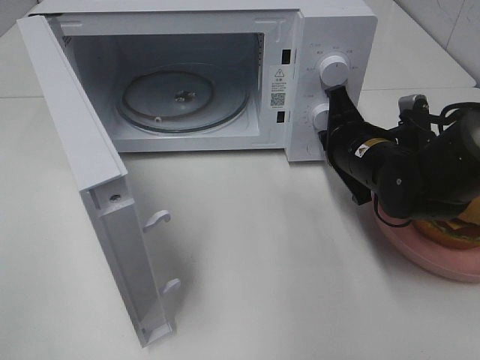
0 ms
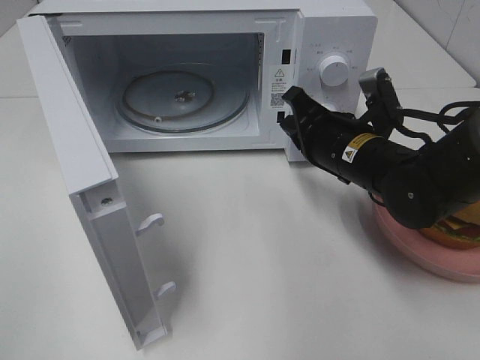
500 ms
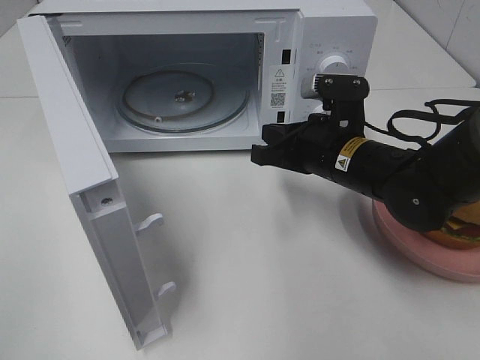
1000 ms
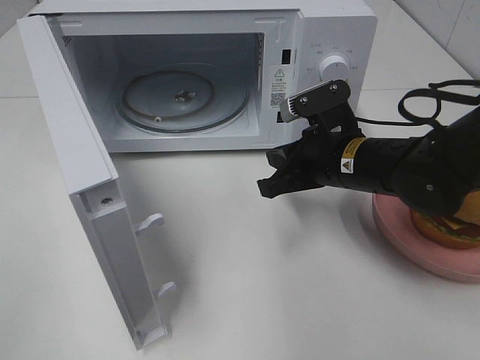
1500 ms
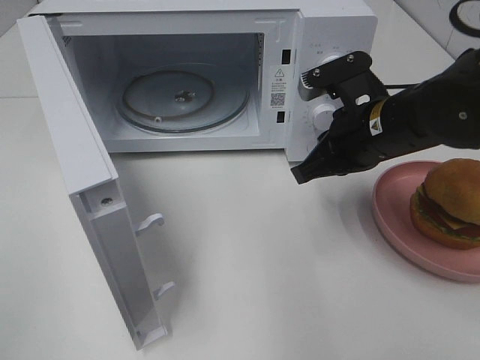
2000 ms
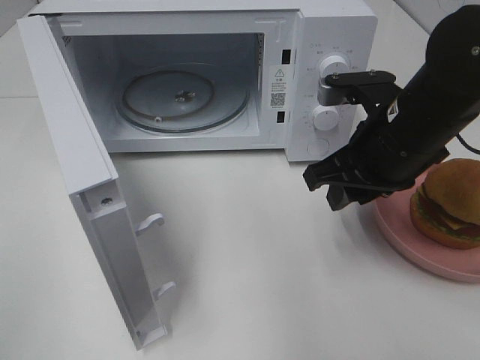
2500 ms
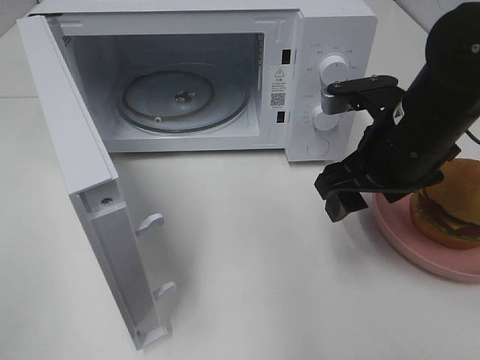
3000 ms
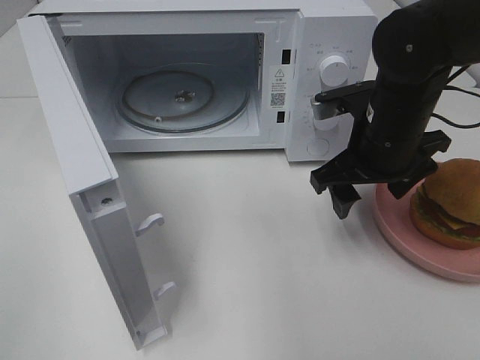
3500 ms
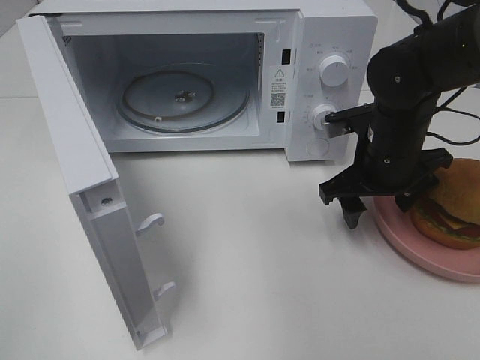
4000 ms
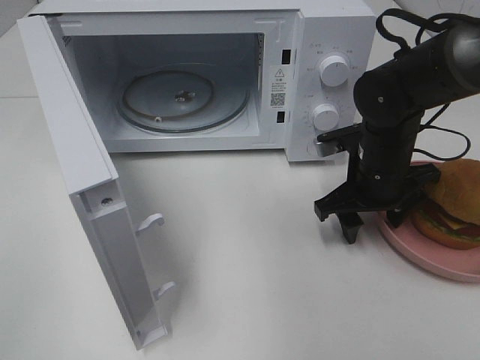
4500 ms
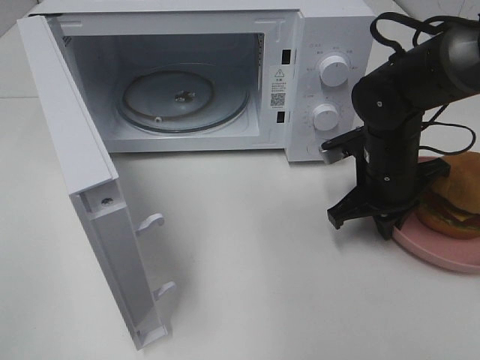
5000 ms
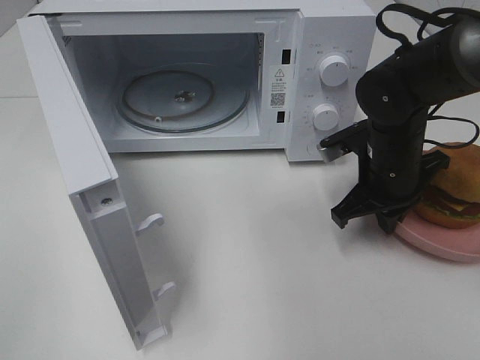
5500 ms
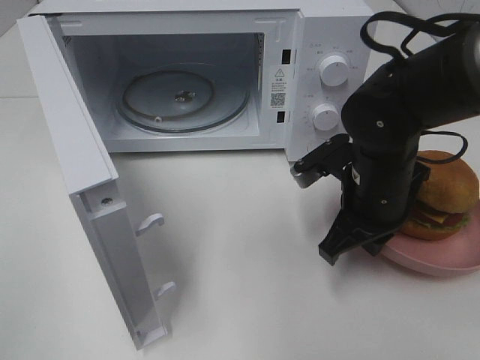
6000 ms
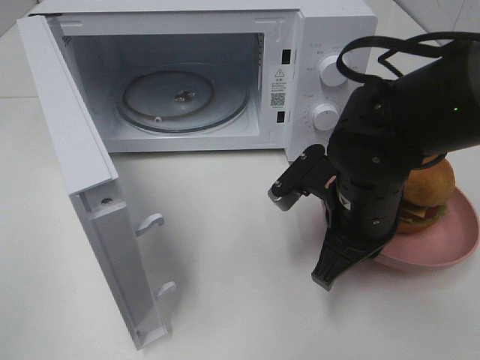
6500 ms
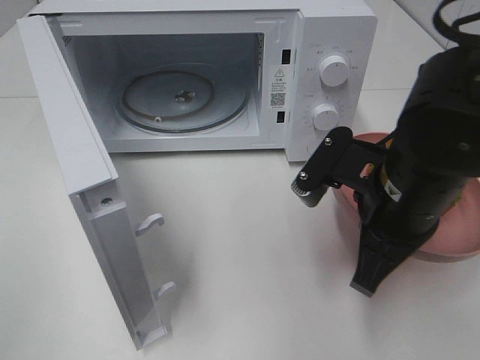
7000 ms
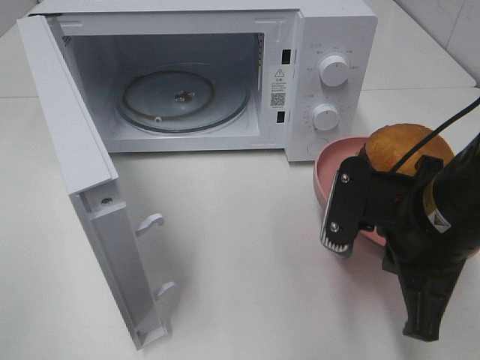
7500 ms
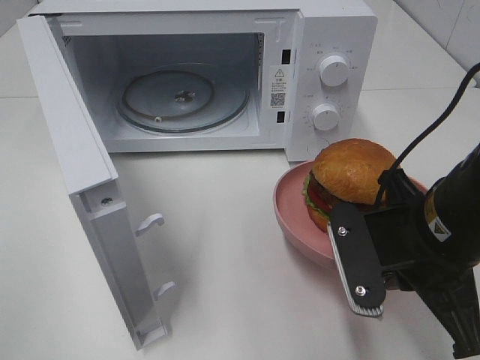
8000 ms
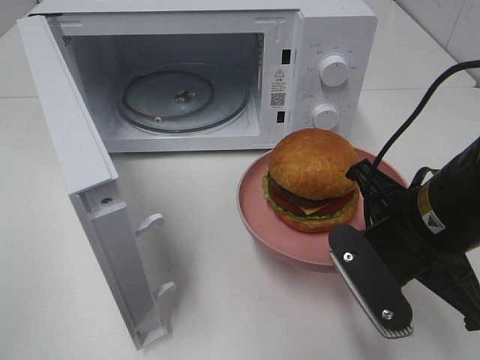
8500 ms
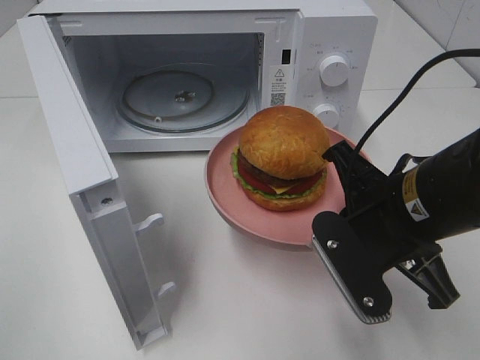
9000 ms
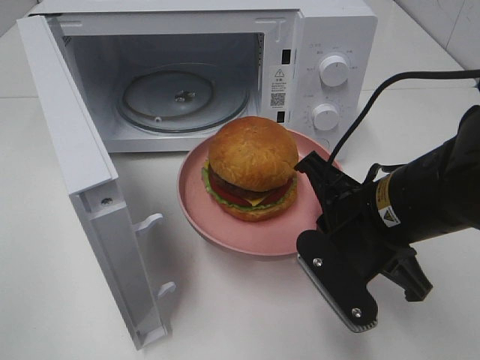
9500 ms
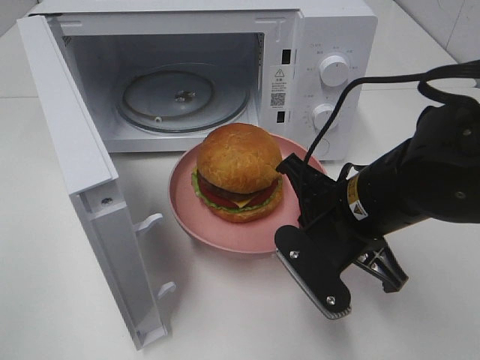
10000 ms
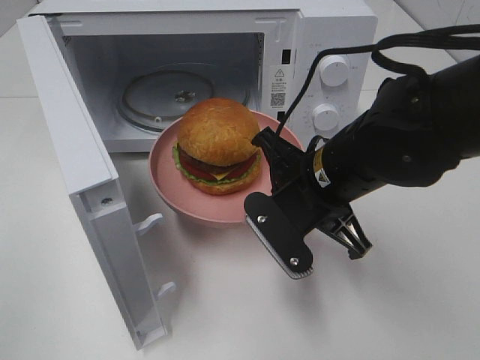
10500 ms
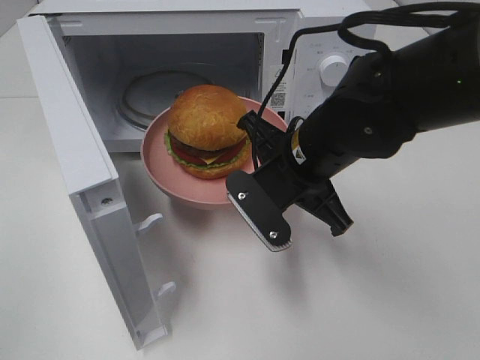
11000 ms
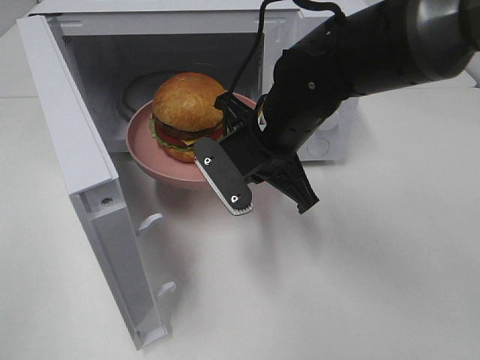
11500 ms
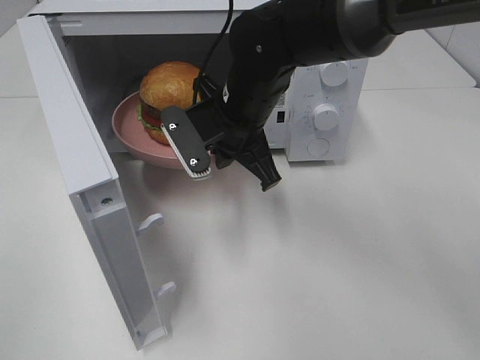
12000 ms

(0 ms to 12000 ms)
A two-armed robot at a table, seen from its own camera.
Task of the whole recording: Heat the burger.
Step, 0 ms - 5000 ms: Right hand: grab the plate with the hamburger.
0 ms - 2000 ms: The right gripper travels upward by about 5 cm.
2000 ms - 4000 ms: The right gripper moves some 5 cm, and opens up.
4000 ms - 6000 ms: The right gripper moves backward, approximately 5 cm, and closes.
6000 ms - 8000 ms: The right gripper heads backward, covering some 10 cm.
8000 ms - 10000 ms: The right gripper ends up approximately 5 cm from where it was.
10000 ms - 12000 ms: The right gripper heads forward and to the left, covering roughly 15 cm.

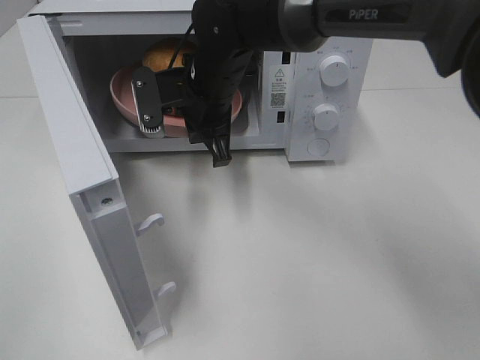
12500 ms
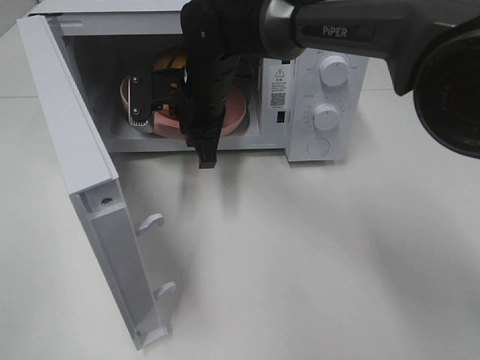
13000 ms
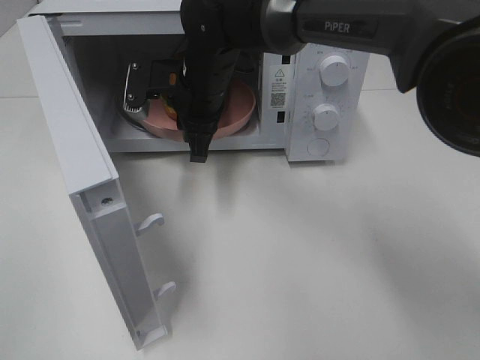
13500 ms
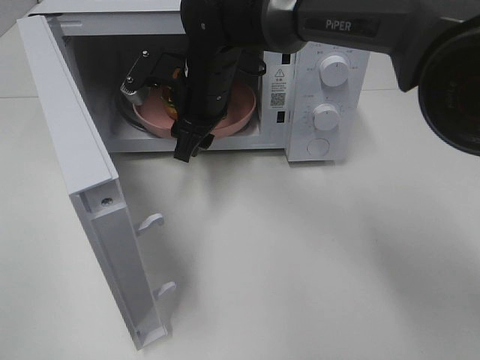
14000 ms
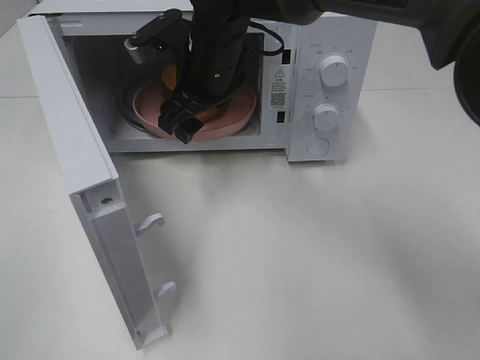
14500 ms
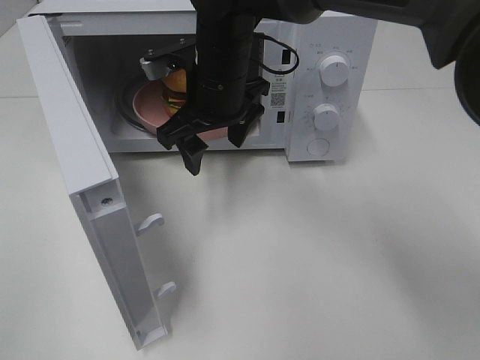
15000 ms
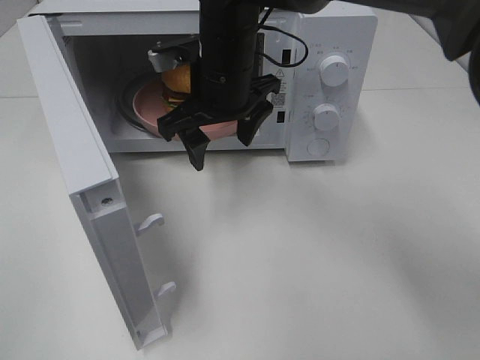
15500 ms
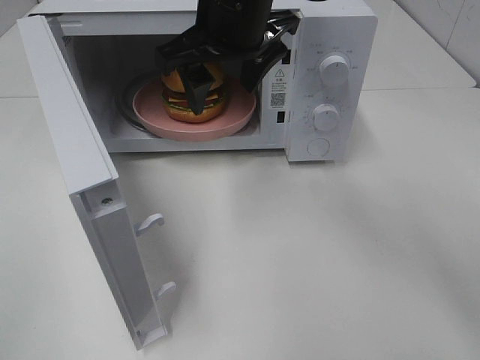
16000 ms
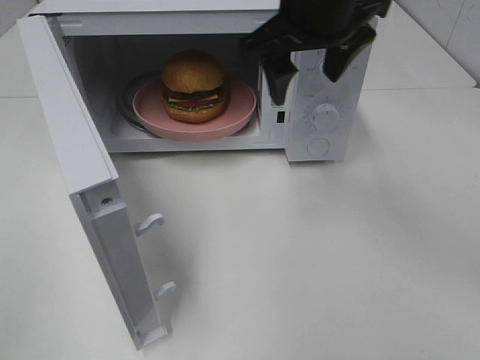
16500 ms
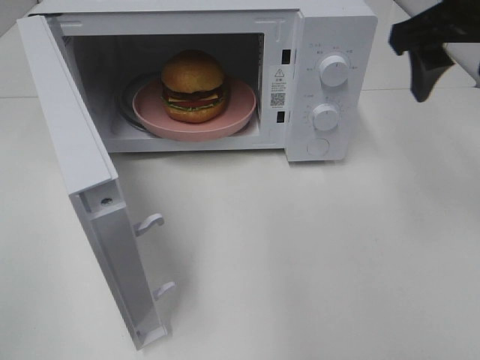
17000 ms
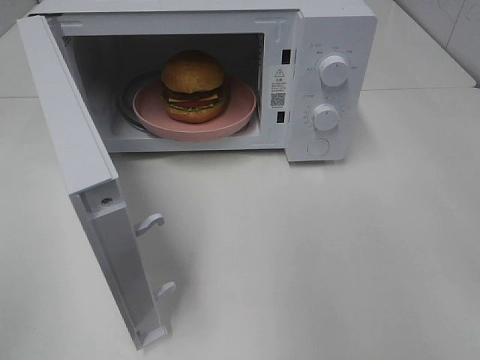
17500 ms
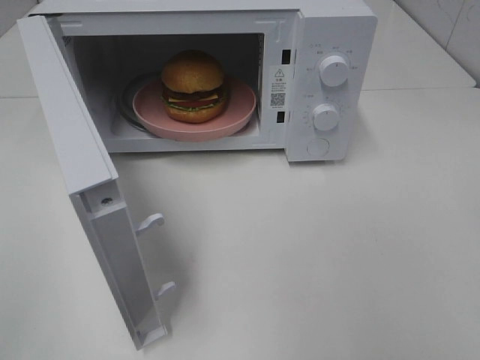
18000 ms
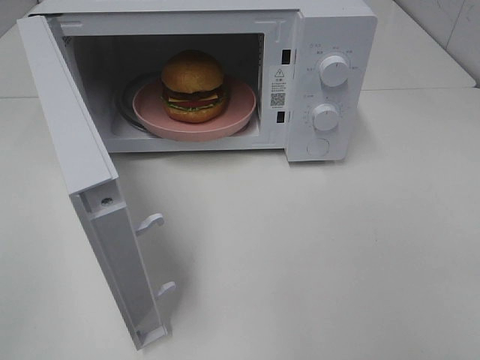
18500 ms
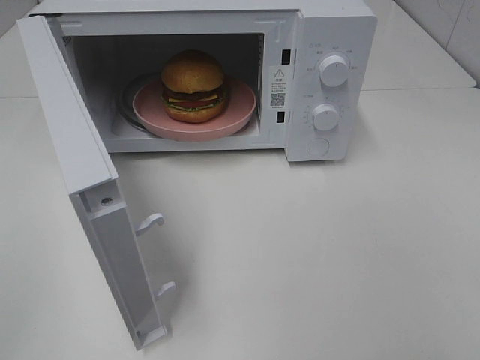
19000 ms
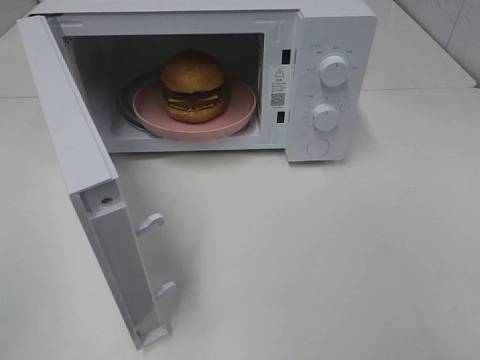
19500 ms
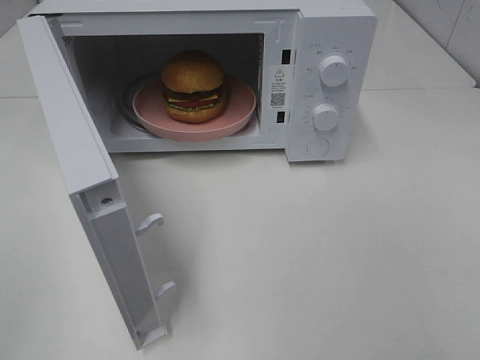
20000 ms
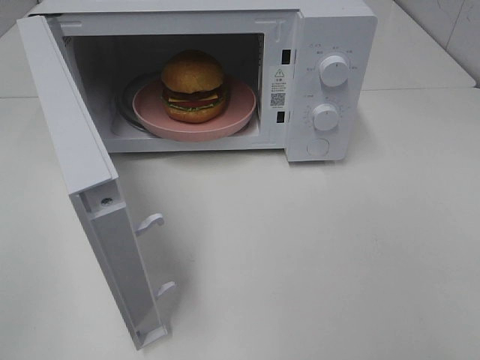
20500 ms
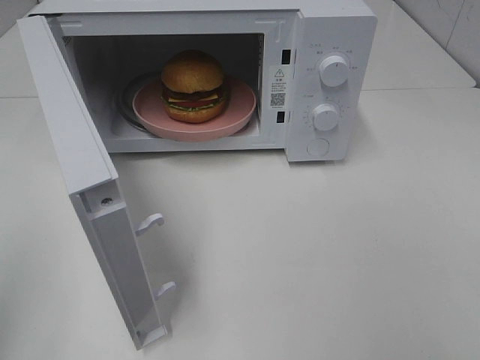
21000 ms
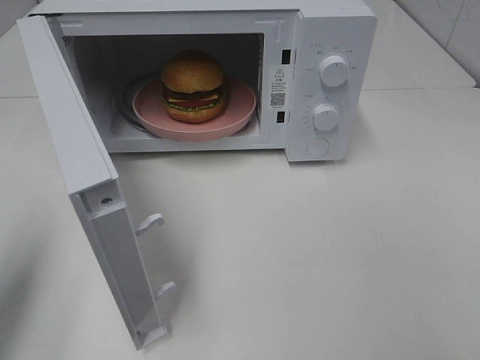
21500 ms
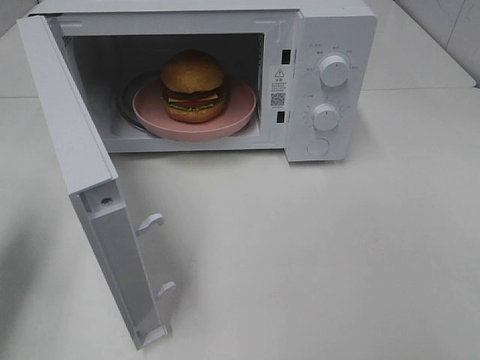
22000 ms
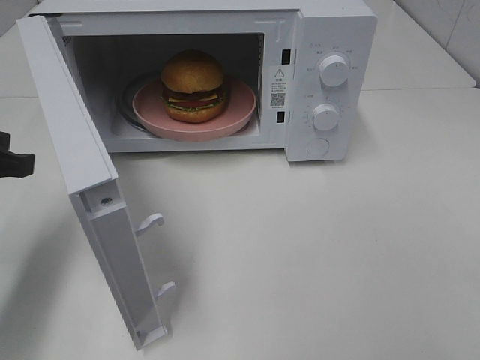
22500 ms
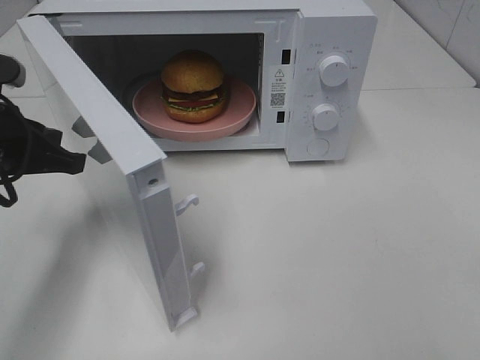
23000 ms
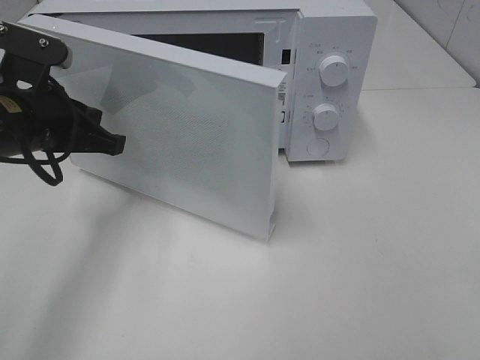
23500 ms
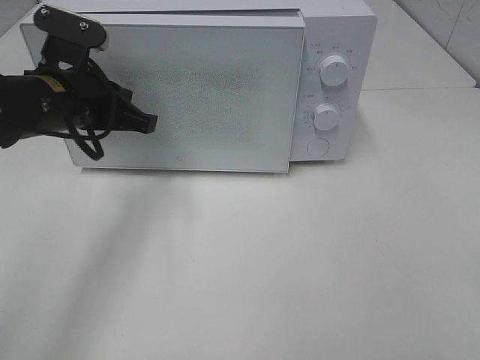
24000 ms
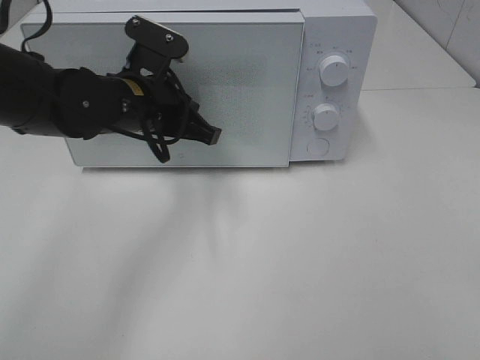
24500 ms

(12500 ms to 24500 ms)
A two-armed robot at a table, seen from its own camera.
Task of the whole recording: Heat the burger.
12500 ms - 14500 ms: The right gripper opens its fingers.
14500 ms - 16500 ms: The right gripper heads to the right and upward, covering roughly 15 cm.
16500 ms - 18500 ms: The right gripper heads backward and to the right, covering about 35 cm.
20500 ms - 22500 ms: The left gripper shifts roughly 25 cm forward.
22500 ms - 24500 ms: The left gripper heads to the right and forward, covering roughly 20 cm.

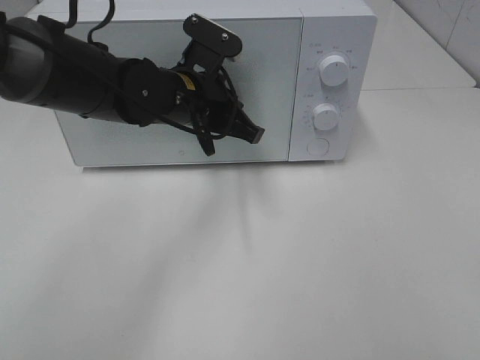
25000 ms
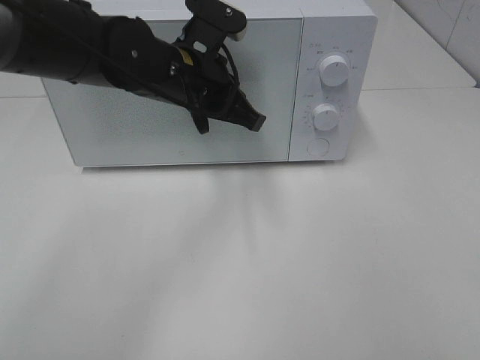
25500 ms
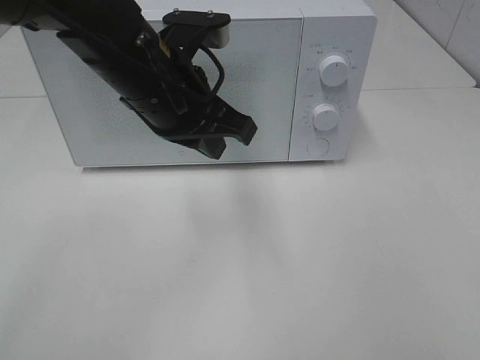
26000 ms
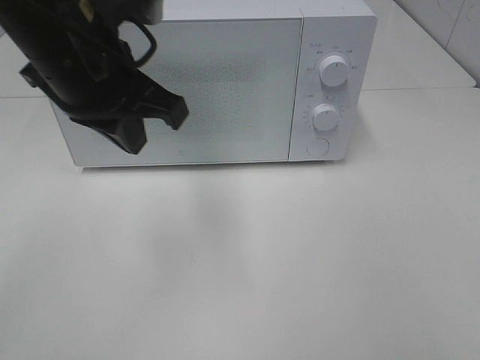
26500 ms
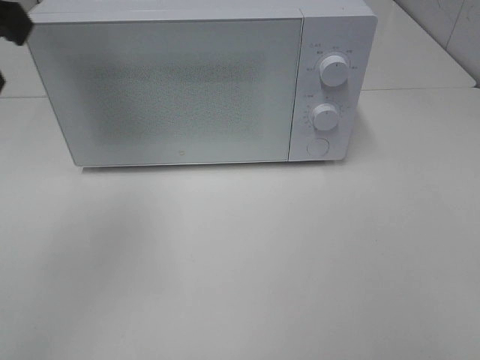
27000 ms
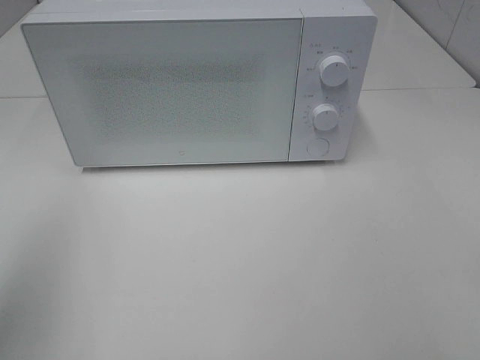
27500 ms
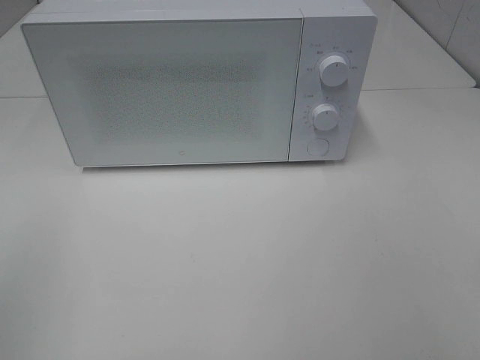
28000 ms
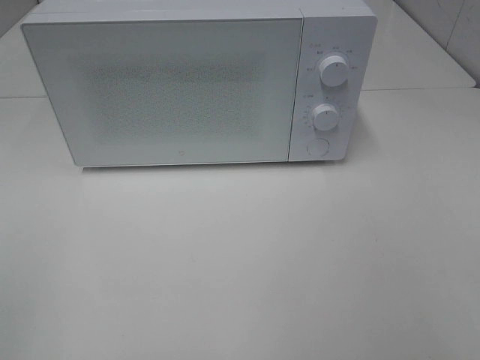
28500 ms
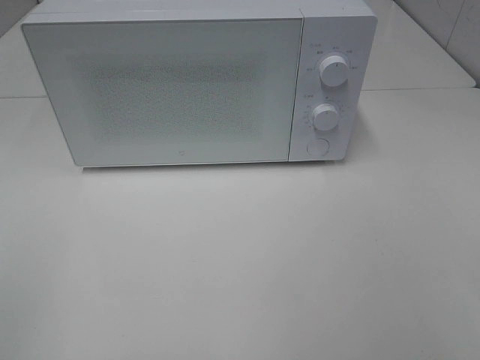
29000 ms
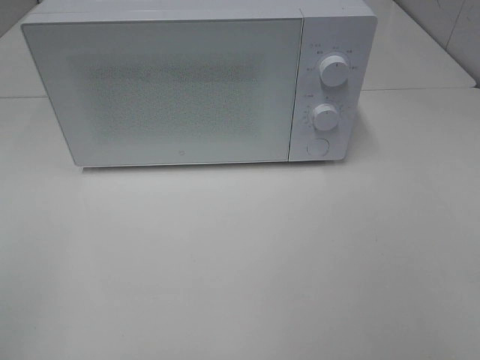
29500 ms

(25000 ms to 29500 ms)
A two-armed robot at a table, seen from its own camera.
Task of the whole recording: Heat the burger.
25000 ms - 27000 ms: The left gripper is displaced upward, to the left and backward by some 30 cm.
27000 ms - 29500 ms: The left gripper shifts about 25 cm backward, and closes.
